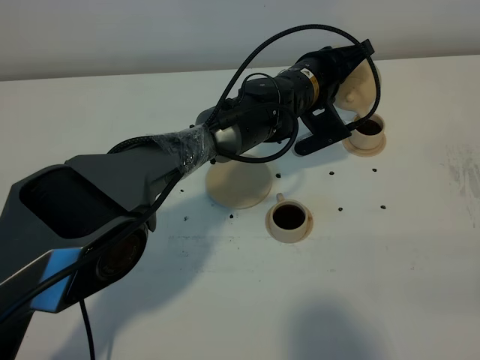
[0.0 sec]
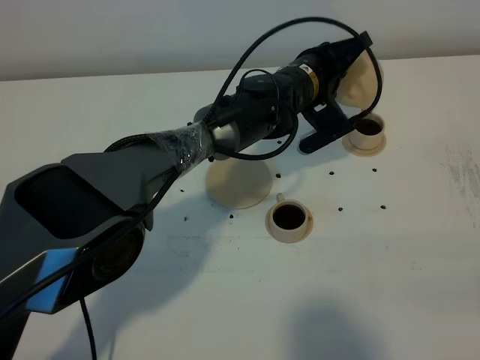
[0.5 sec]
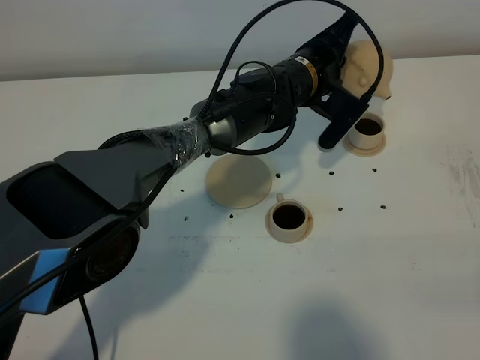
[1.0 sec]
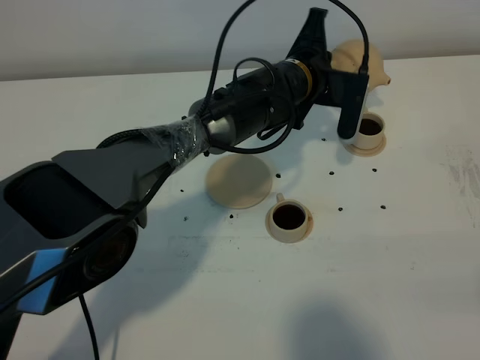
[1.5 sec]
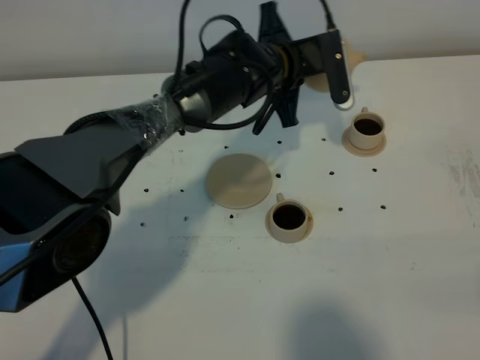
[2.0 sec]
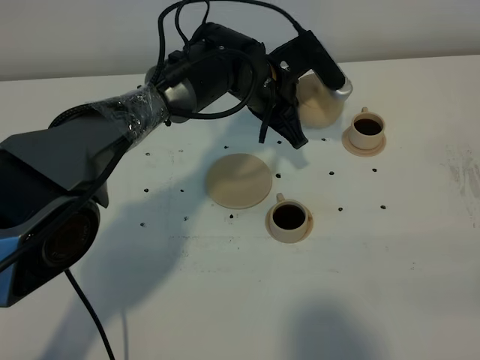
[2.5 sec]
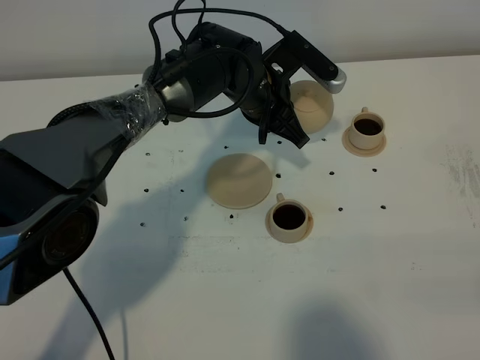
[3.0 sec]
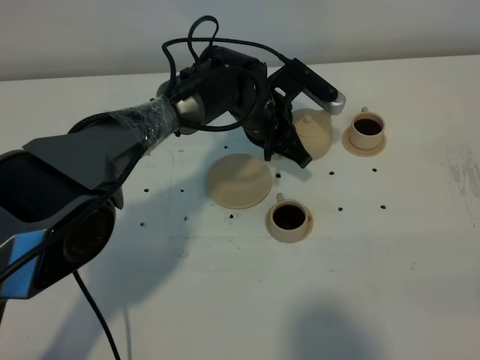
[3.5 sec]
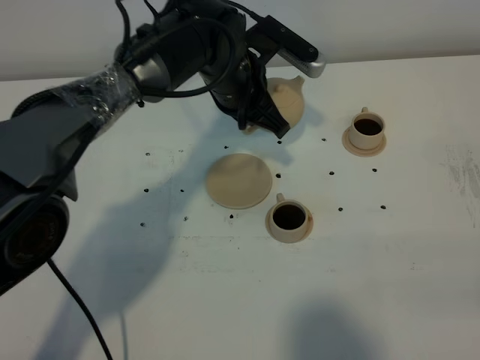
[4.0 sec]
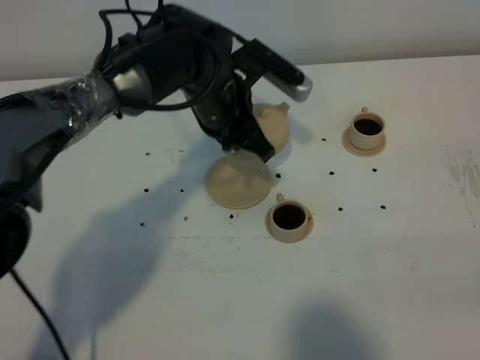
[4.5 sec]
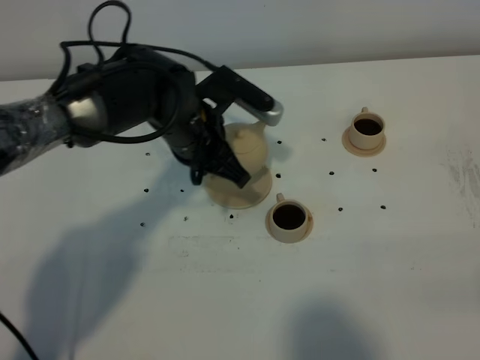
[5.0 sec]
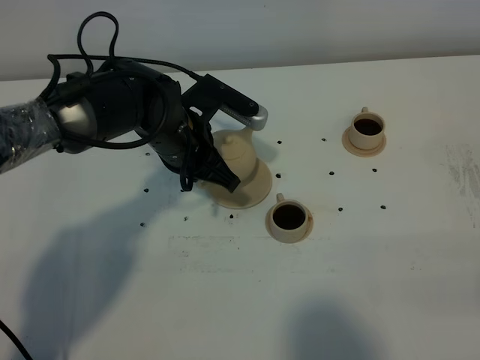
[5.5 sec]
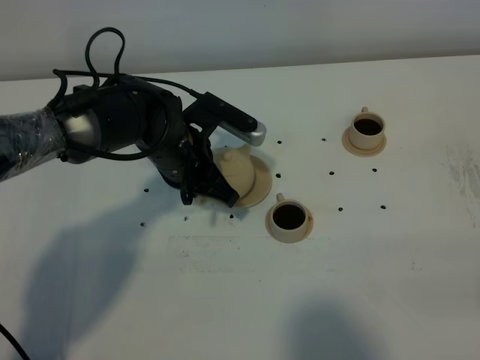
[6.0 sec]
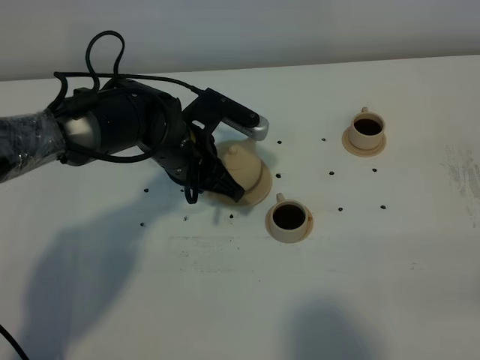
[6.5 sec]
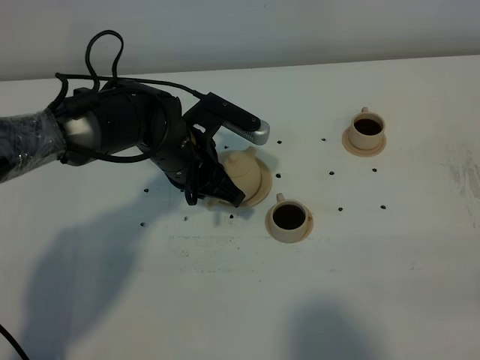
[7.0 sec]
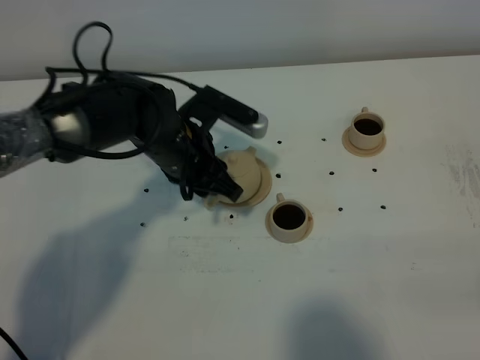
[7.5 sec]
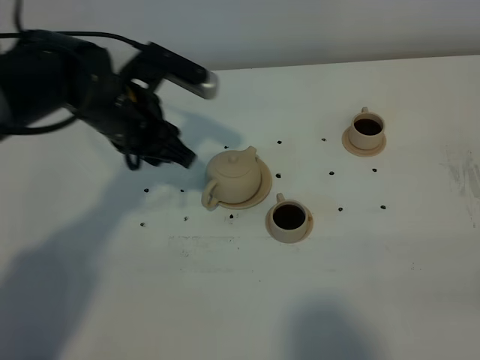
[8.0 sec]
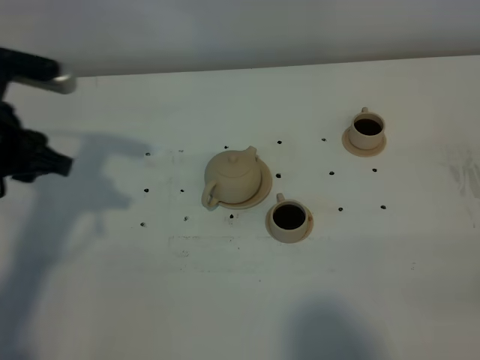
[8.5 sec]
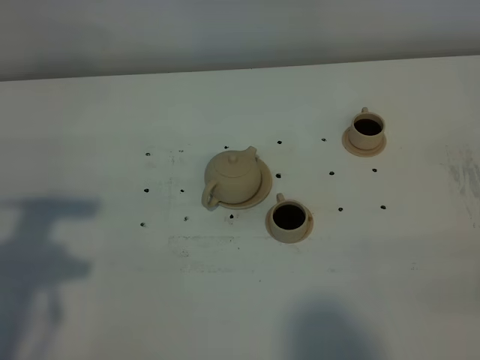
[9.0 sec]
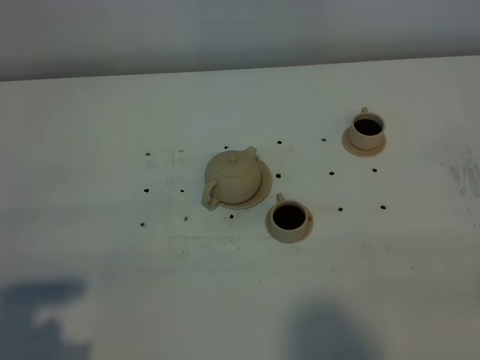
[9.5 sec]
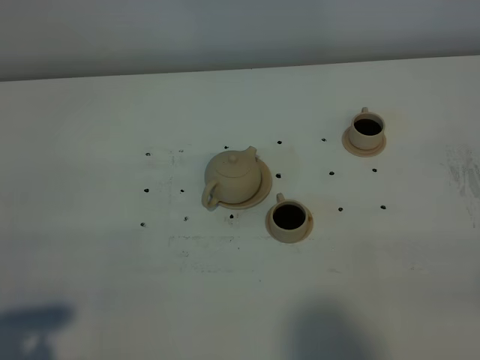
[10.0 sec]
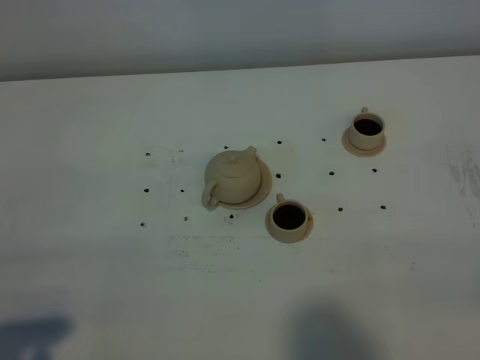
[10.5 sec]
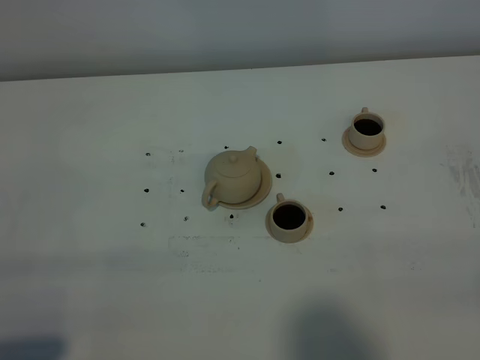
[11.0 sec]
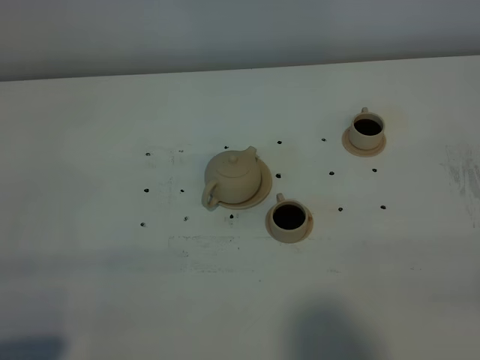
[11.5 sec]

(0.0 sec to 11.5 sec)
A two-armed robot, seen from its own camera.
Task of the whole recording: grasp the brown teapot and pour the tea into the two brown teacups one by one, put the brown teapot back in its original place.
0.0 sec - 2.0 sec: The left gripper changes place by roughly 5 cm.
2.0 sec - 4.0 sec: The left gripper ends up some 5 cm from where it was.
4.0 sec - 6.0 sec: The left gripper shifts about 10 cm to the left, backward and downward.
6.0 sec - 7.5 sec: The left gripper opens up.
7.5 sec - 9.5 sec: The left gripper travels backward and to the left by about 35 cm.
9.5 sec - 11.5 sec: The left gripper travels backward by roughly 5 cm.

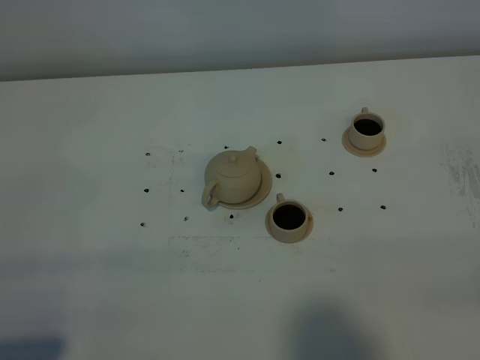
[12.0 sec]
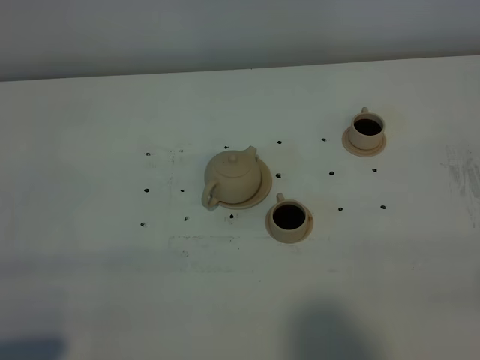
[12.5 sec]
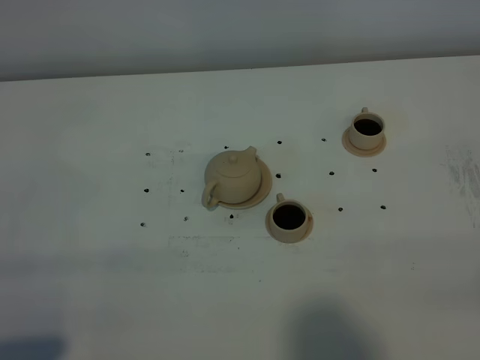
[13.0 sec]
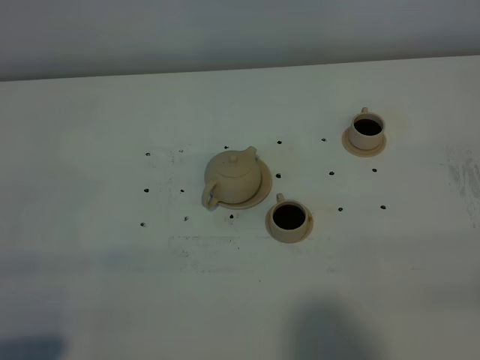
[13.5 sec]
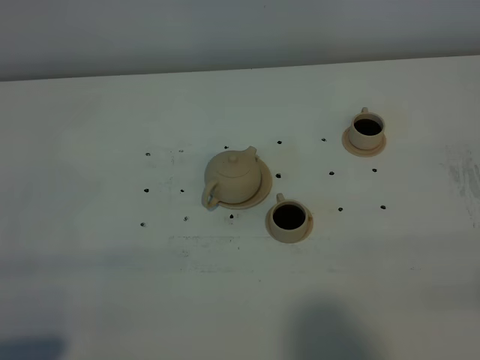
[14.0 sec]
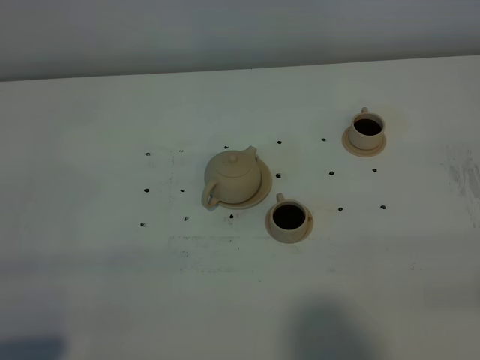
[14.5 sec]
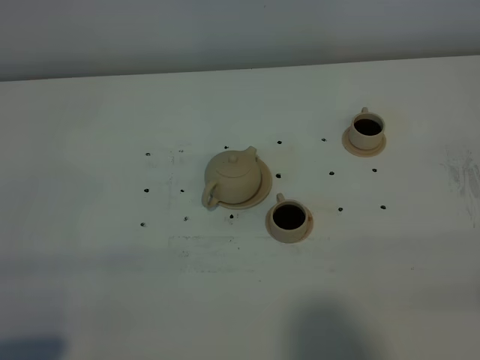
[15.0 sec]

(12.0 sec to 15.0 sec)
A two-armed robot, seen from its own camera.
Task of the whole recording: grasp the brown teapot and pour the tea into the two brown teacups one by one, put the brown teapot back in its original place.
13.5 sec - 15.0 sec: The two grippers keep their place.
